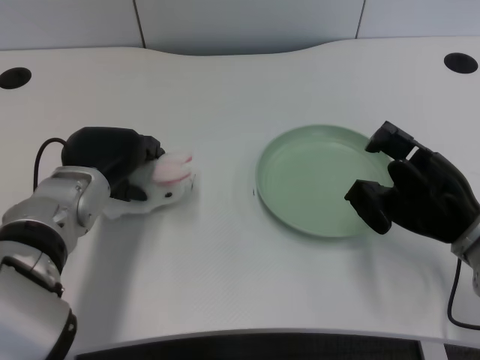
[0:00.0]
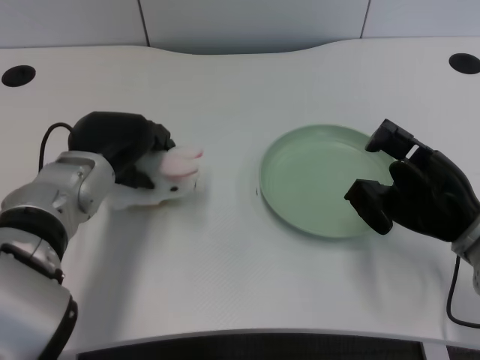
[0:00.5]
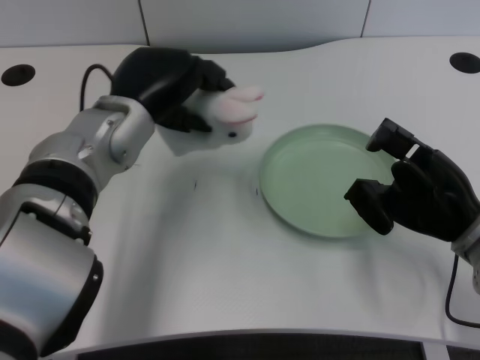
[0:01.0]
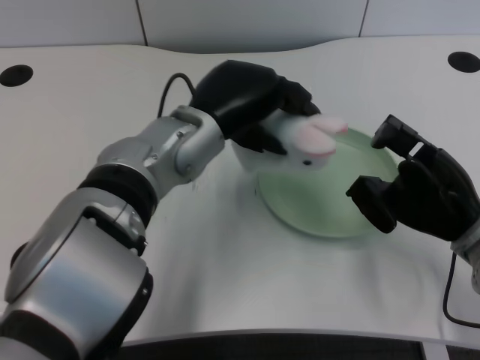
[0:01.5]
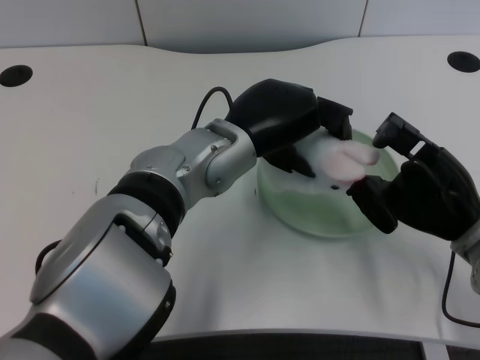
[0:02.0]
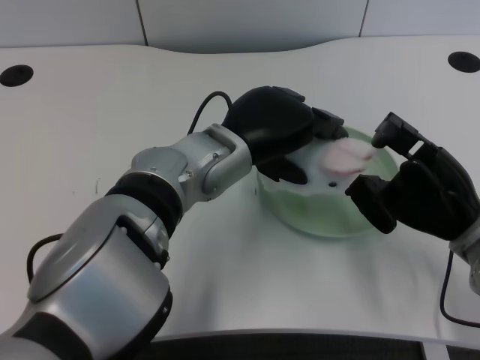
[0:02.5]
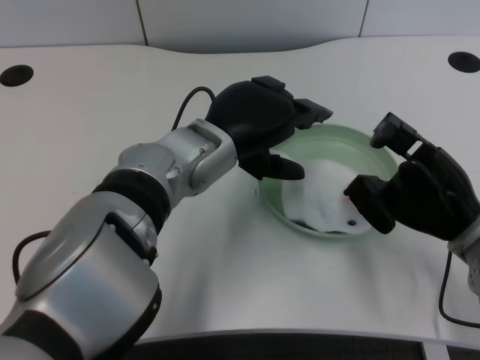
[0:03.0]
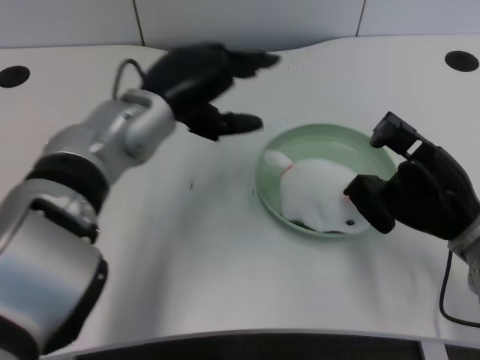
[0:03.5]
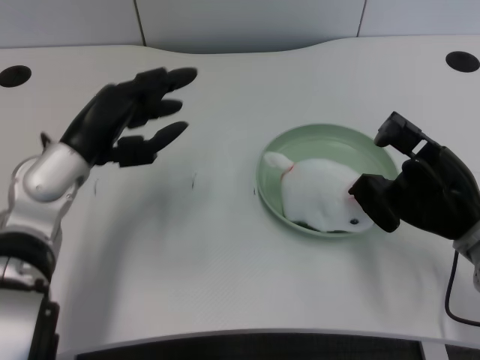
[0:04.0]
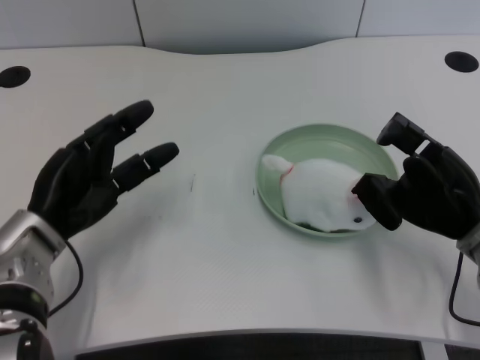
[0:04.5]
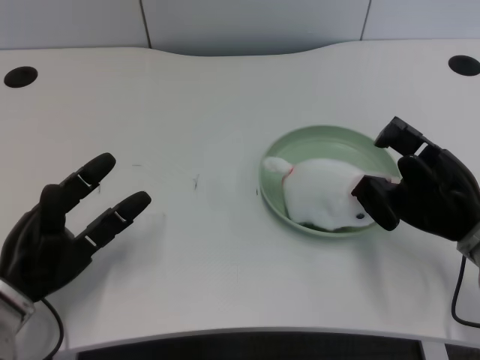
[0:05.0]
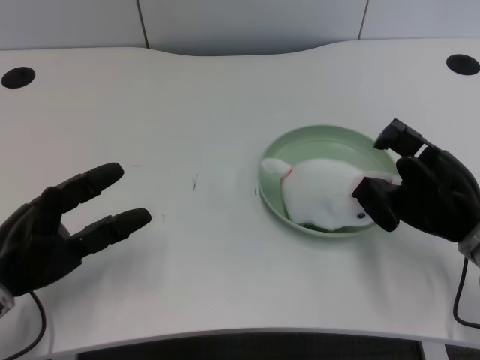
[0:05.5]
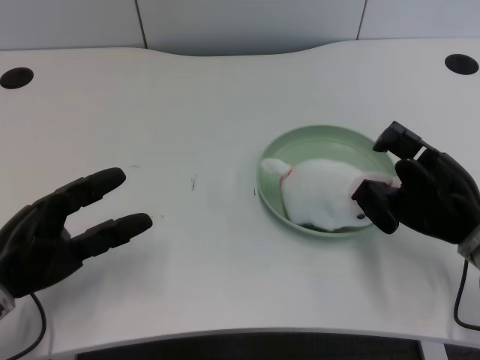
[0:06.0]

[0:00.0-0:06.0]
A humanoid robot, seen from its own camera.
Task of the whole recording: pick up the rabbit doll from the table and place it on the plate.
Step, 0:01.0 to 0:02.5: Place the rabbit doll into the plate with the left gripper.
0:00.0 to 0:02.0: The left hand heads to the right and upward, covering some 15 cm.
0:02.0 to 0:04.0: The left hand travels to the left by approximately 15 cm.
0:04.0 to 0:06.0: The left hand heads downward, to the left and backward, covering some 15 cm.
